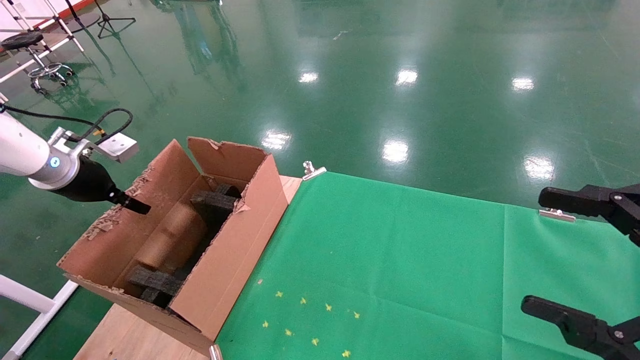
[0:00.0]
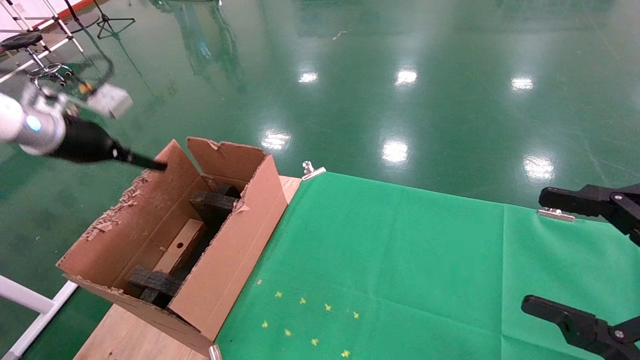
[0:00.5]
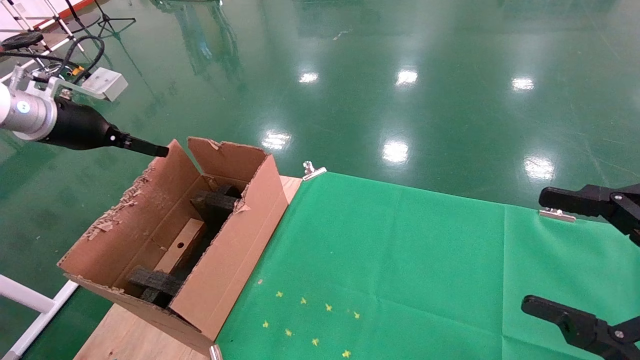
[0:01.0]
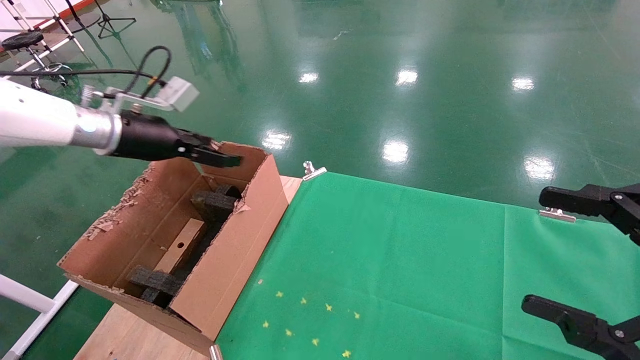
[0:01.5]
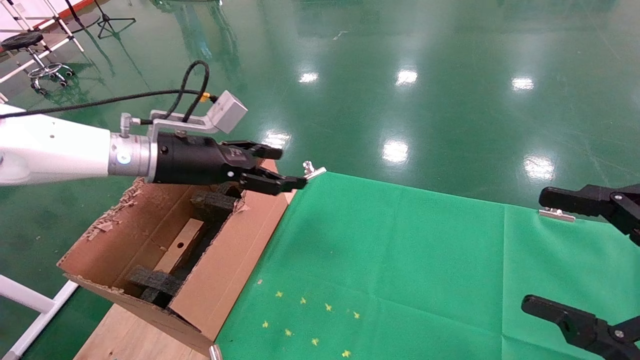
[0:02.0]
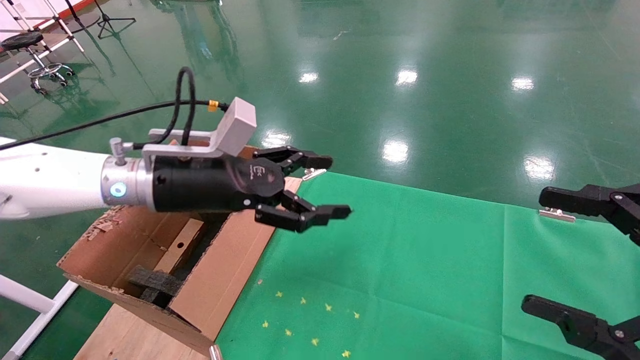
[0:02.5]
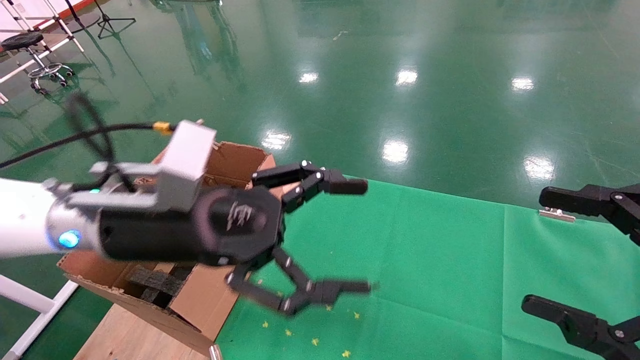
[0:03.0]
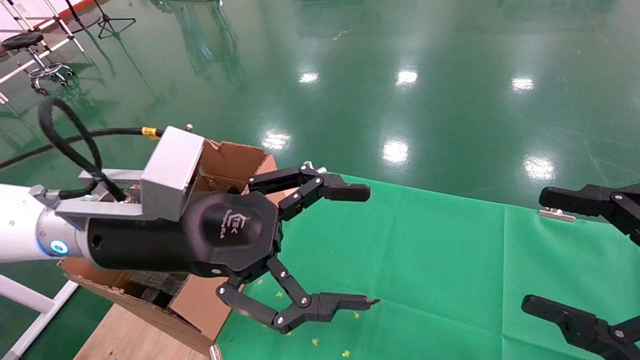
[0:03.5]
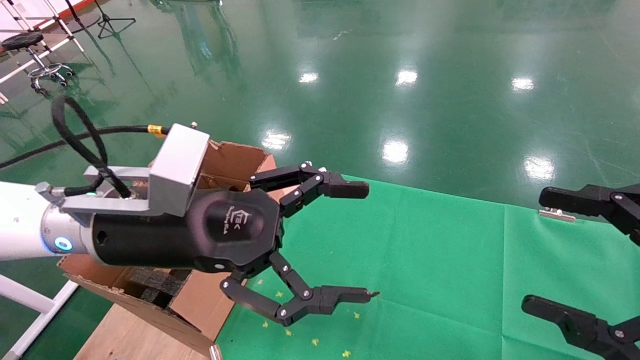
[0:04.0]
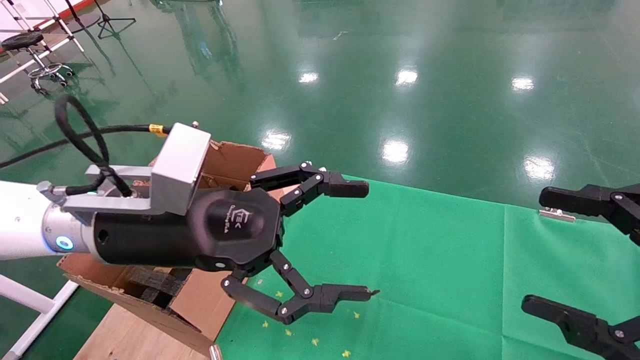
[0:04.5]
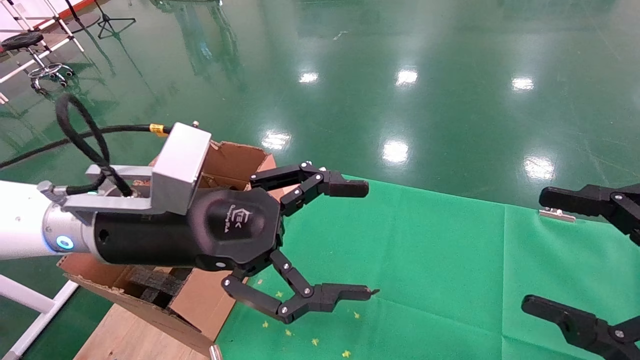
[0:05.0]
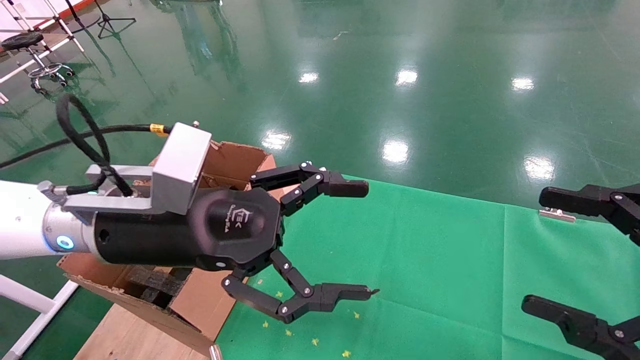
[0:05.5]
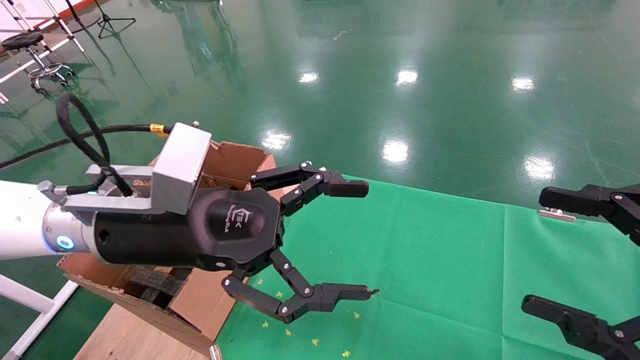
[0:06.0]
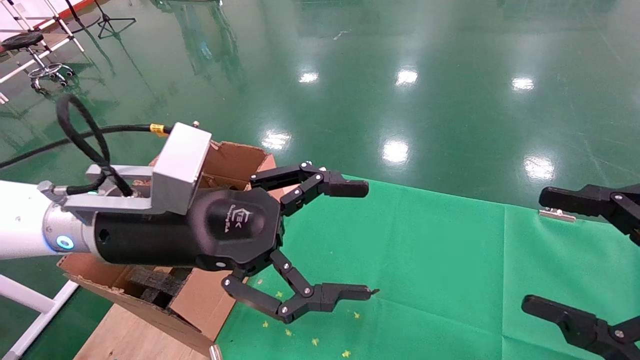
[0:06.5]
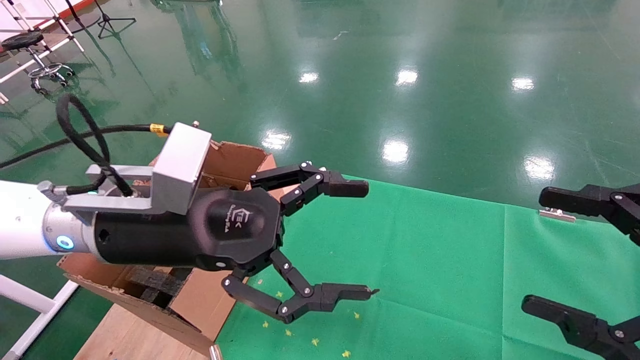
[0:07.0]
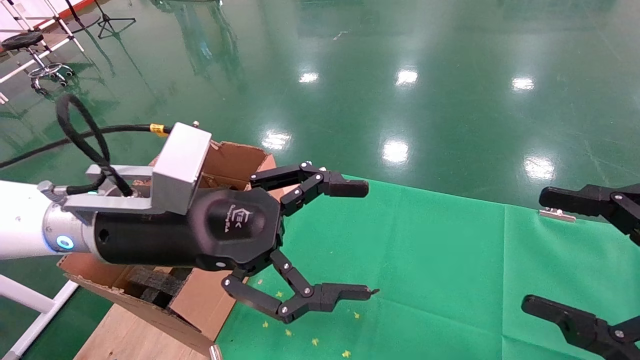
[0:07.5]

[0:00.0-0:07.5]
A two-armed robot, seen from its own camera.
Task of the whole recording: using a robotic arm to pick up a cardboard box and palace it the carton.
0:00.0 to 0:02.0: The left gripper goes roughly 20 cm to the right, and opens up.
0:02.0 to 0:04.0: The left gripper heads backward and to the right, covering roughly 20 cm.
0:04.0 to 0:07.5: Both grippers stay about where they are.
